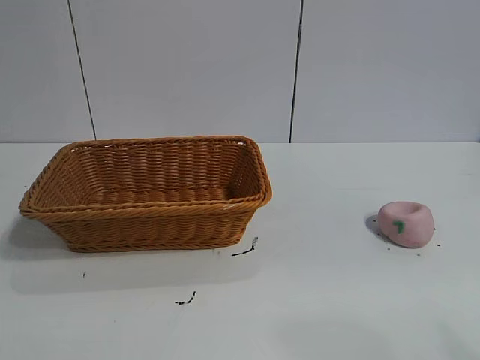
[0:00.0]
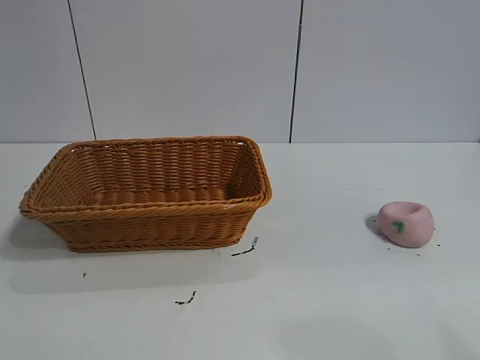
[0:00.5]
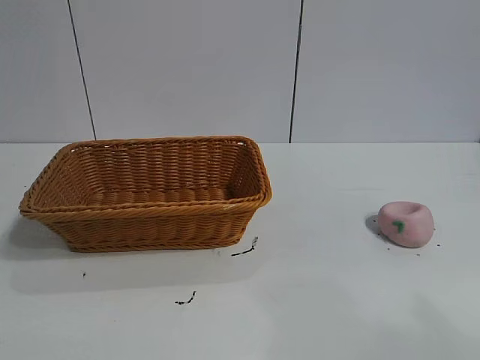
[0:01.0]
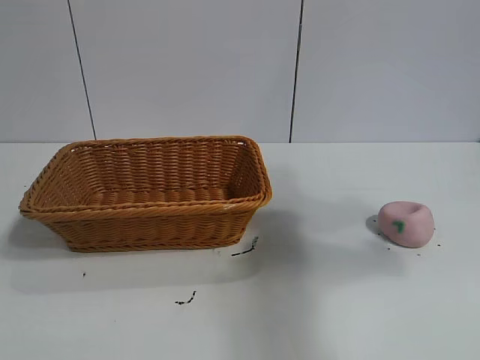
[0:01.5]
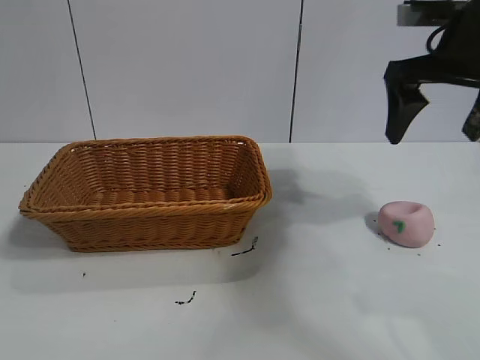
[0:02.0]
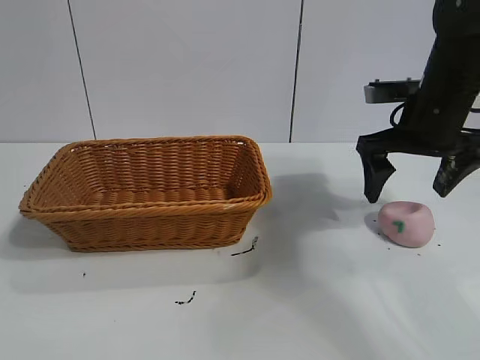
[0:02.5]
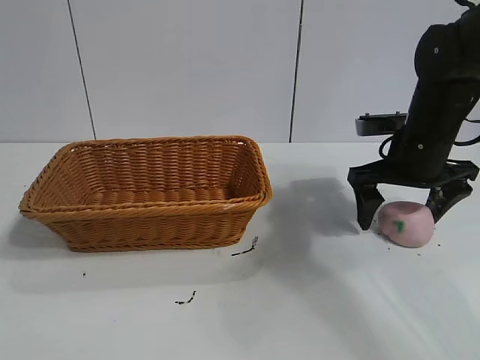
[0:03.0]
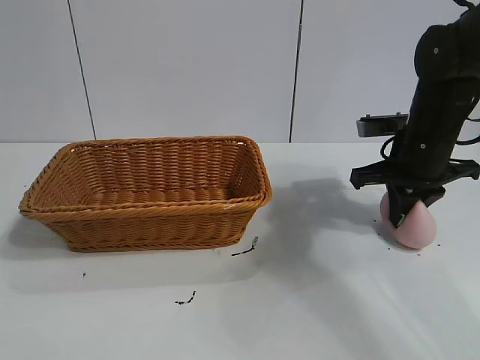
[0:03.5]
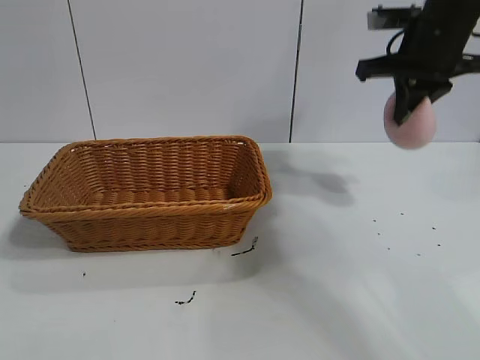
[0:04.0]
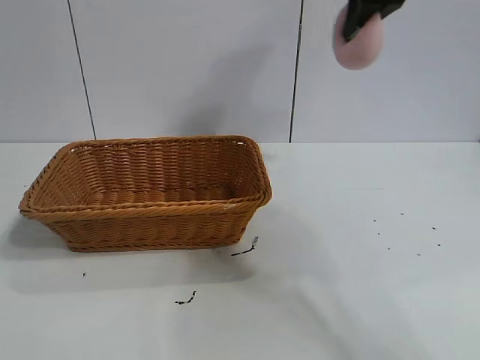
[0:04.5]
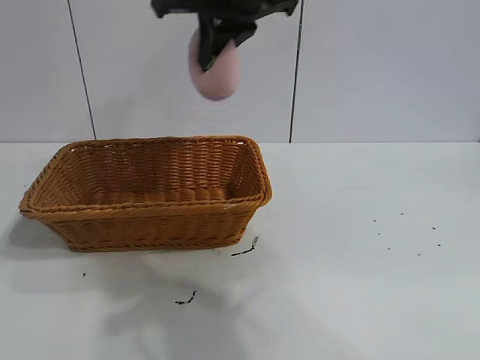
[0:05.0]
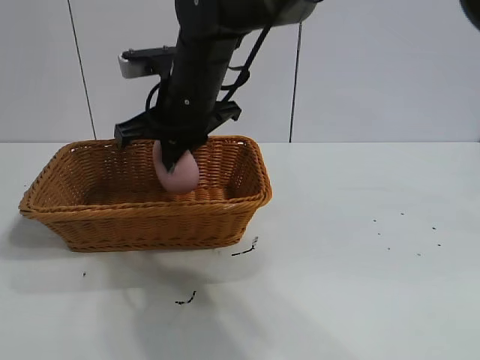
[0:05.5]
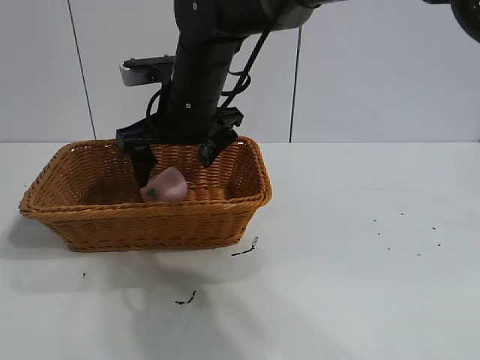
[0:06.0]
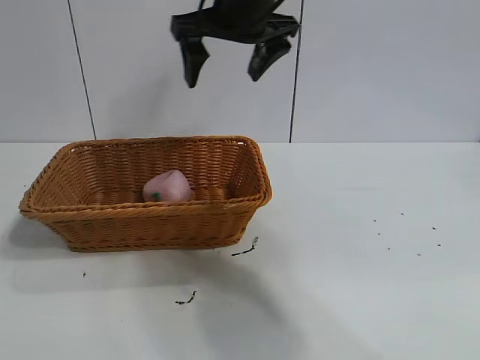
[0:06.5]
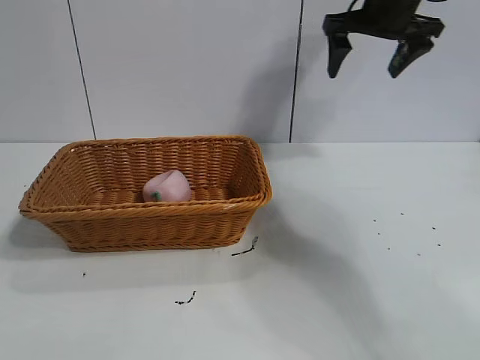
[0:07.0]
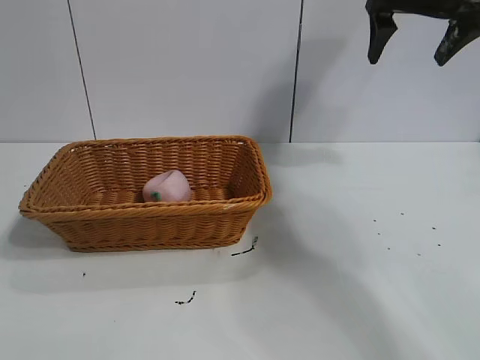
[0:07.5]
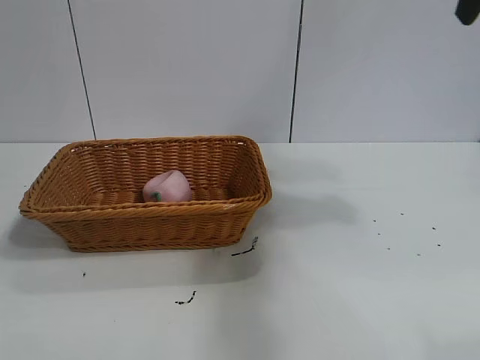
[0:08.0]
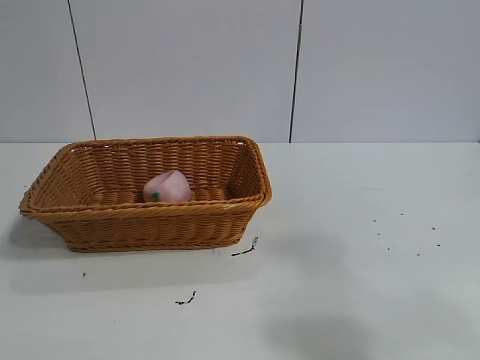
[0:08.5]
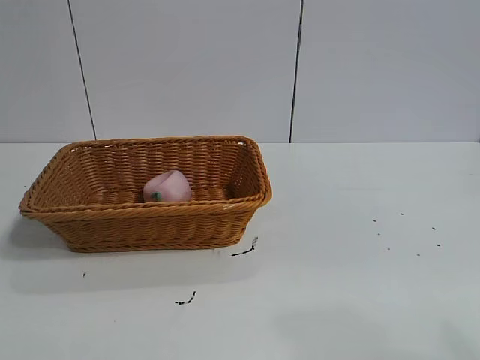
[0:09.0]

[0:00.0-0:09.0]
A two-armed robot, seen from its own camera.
Task of the whole recording: pick up the peach and put it into the basket.
Step, 0:01.0 to 0:03.5: Grasp the peach with right gripper.
Step, 0:04.0 to 0:05.5: Place the peach in the basket with right gripper.
